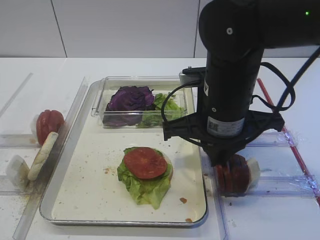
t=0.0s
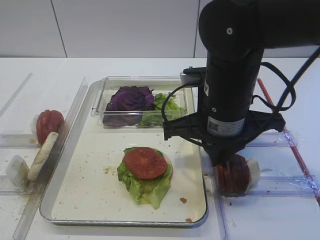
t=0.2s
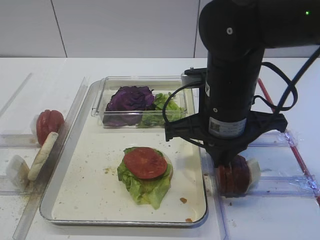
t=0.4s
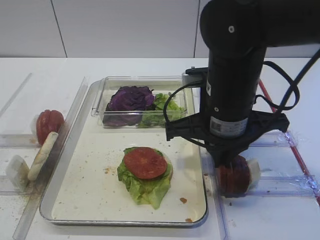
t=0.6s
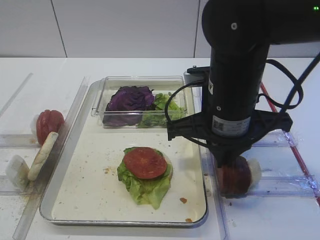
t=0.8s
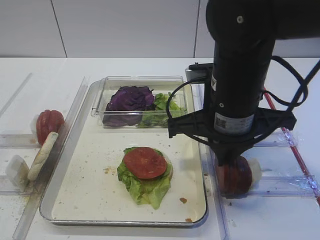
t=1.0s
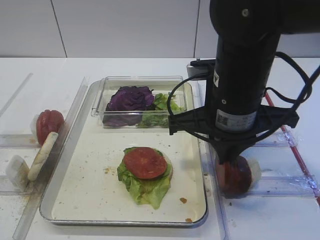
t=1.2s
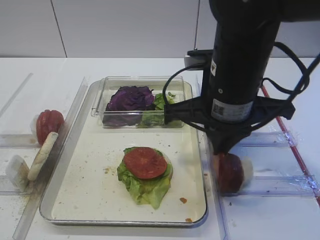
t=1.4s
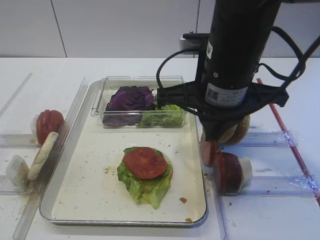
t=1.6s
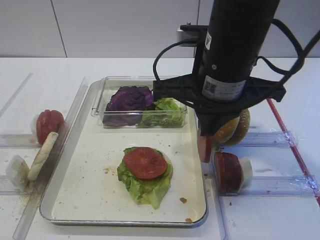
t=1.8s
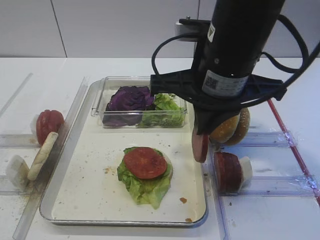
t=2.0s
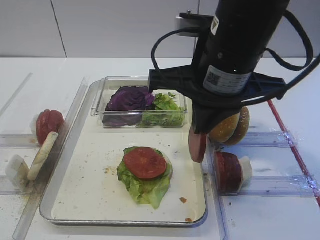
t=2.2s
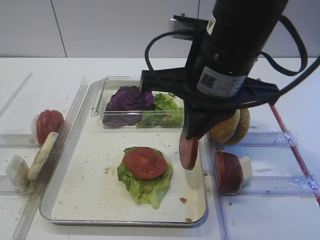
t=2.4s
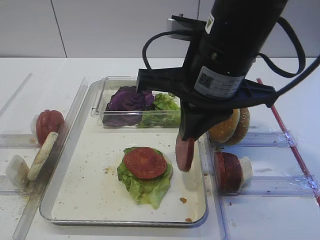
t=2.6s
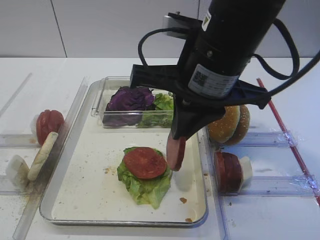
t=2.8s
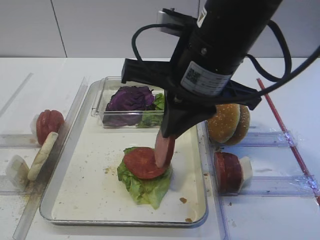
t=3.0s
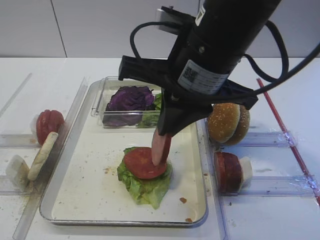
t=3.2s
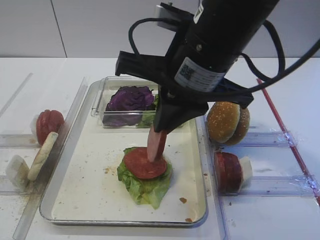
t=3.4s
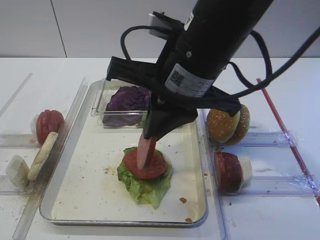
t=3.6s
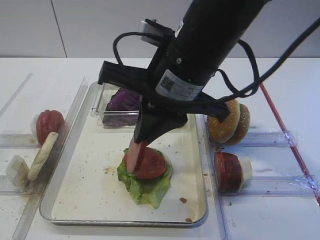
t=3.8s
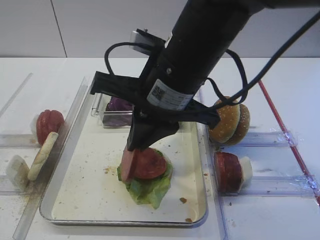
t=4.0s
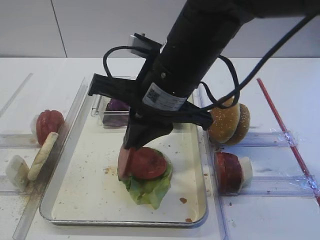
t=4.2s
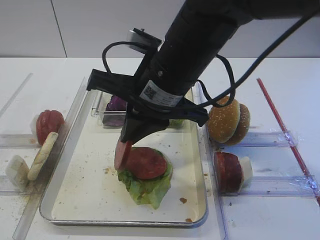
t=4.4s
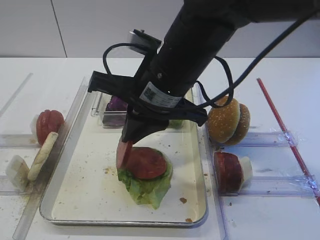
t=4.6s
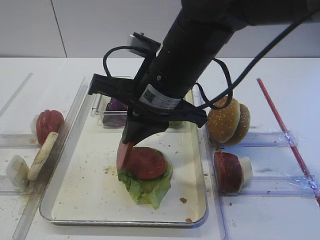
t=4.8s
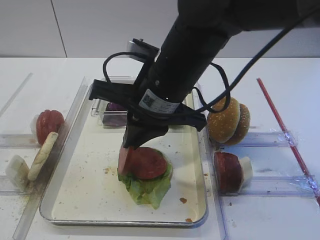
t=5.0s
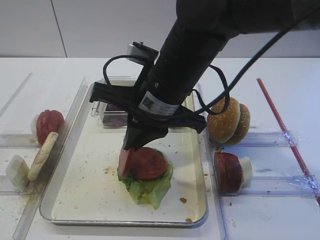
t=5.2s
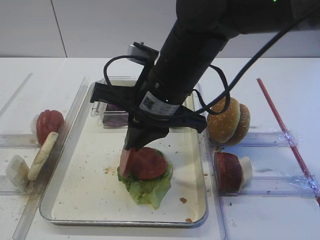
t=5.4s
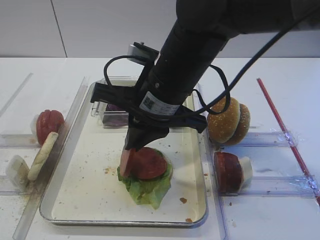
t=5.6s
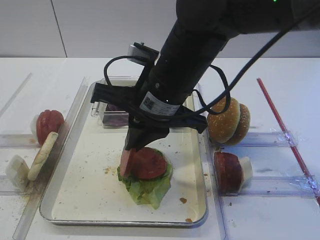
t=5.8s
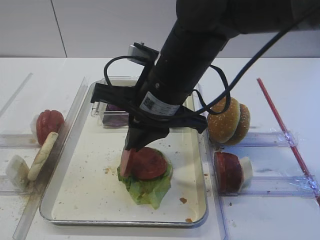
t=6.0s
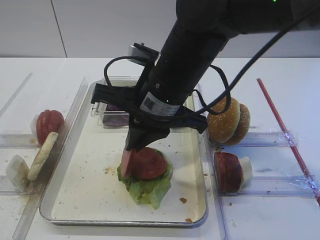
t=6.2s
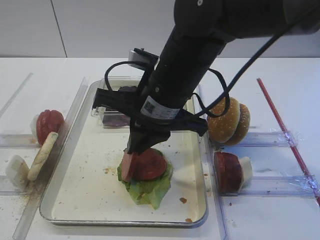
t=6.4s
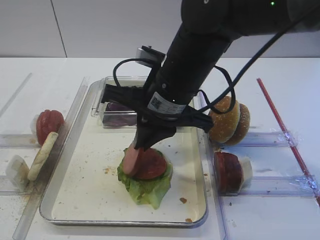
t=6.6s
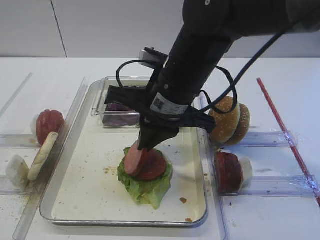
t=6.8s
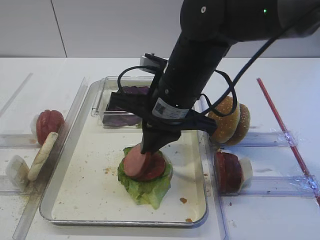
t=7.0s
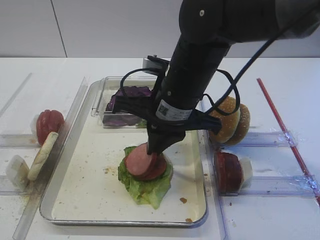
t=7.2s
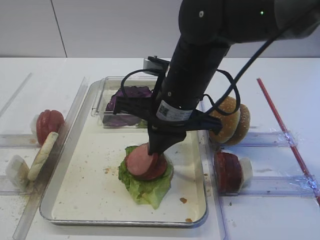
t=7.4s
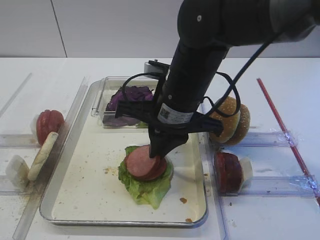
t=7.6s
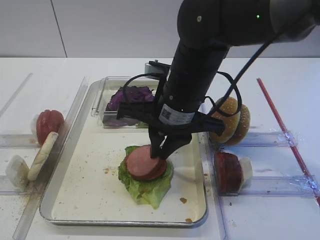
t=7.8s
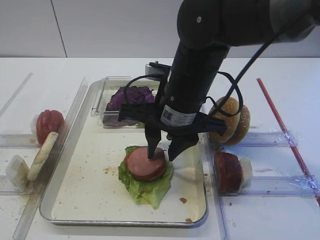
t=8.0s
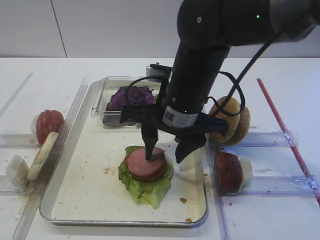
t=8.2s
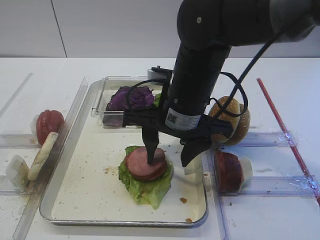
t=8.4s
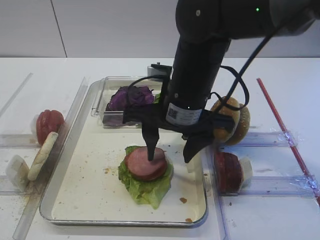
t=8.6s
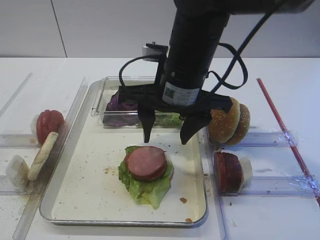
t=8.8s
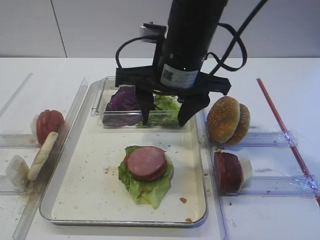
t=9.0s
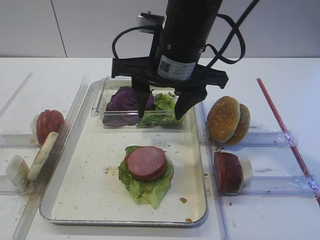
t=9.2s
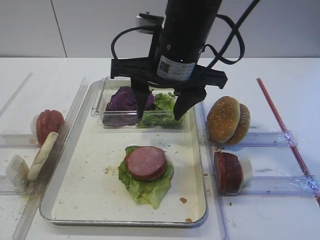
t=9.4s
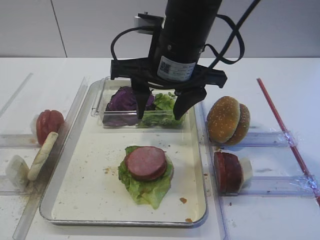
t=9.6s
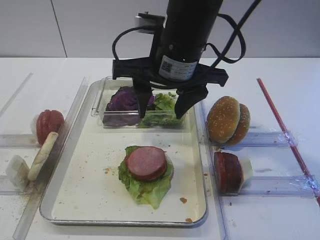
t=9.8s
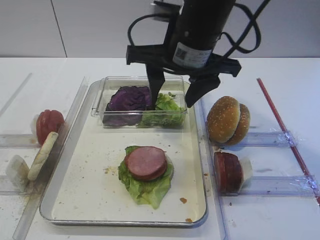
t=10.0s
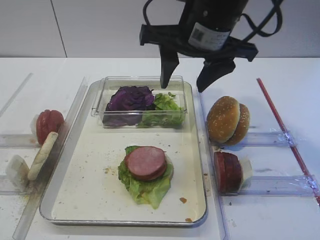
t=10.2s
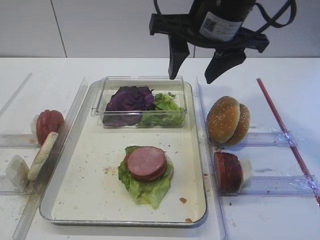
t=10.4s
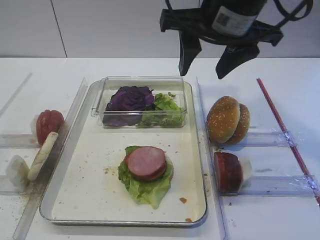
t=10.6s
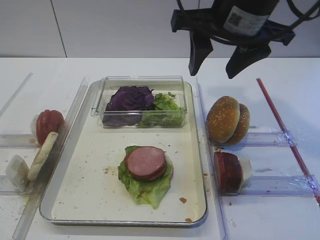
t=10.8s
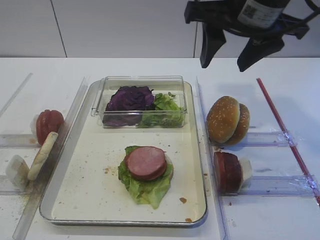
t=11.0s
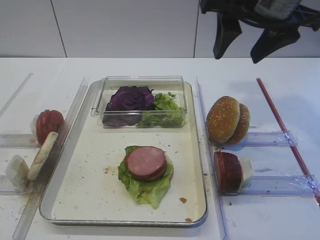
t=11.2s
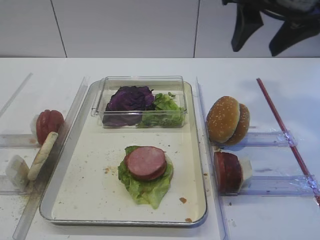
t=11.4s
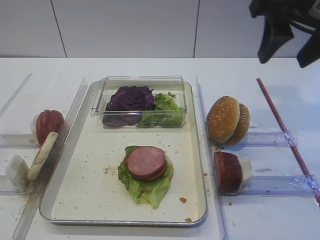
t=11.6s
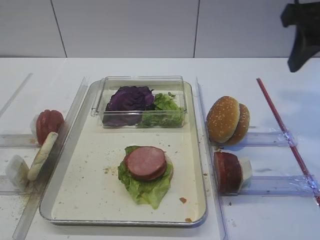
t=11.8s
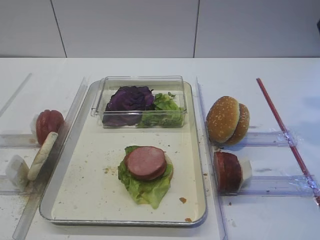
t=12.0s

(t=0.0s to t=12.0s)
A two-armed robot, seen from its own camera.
Step, t=1.6s - t=9.0s: Place the cutlet on the tomato slice with the right gripper.
t=0.0s - t=1.6s: The grippers make only small movements.
t=1.6s - t=3.0s: The grippers move only a little.
t=3.0s - t=4.4s: The right gripper shifts by about 5 cm.
t=4.4s - t=7.6s: The grippers stay close to where they were, moving slightly.
t=7.6s - t=9.0s: The right gripper goes some 5 cm upward, and opens its fingers.
t=9.0s - t=10.4s: The right gripper goes some 10 cm upward and to the right.
t=10.4s - t=12.0s: The right gripper goes about 20 cm to the right.

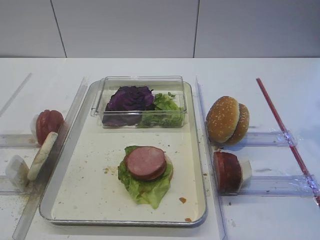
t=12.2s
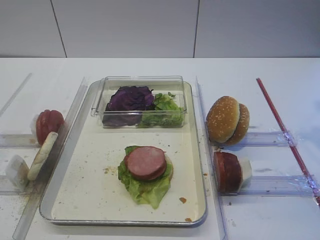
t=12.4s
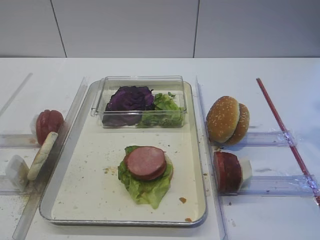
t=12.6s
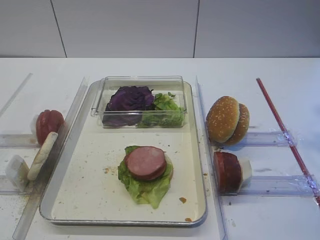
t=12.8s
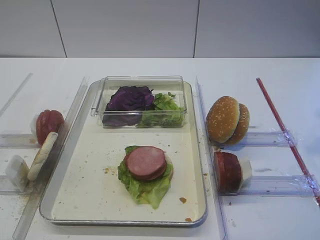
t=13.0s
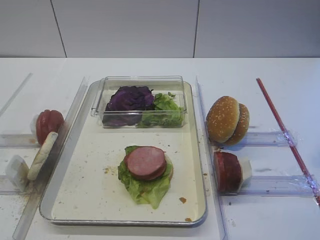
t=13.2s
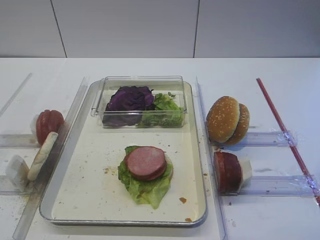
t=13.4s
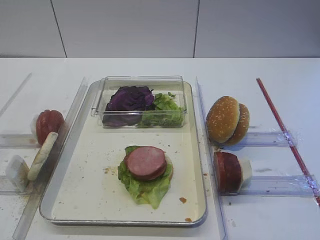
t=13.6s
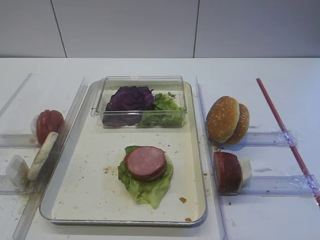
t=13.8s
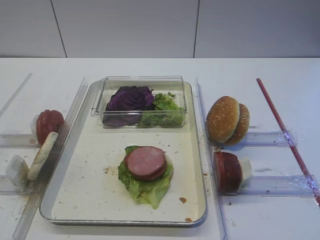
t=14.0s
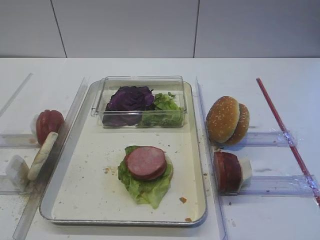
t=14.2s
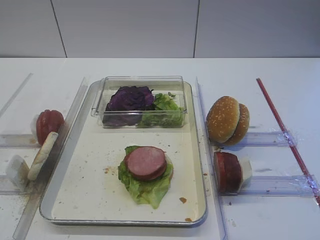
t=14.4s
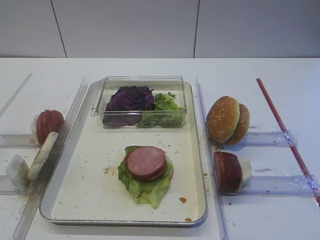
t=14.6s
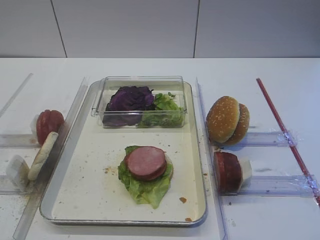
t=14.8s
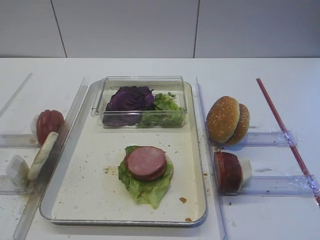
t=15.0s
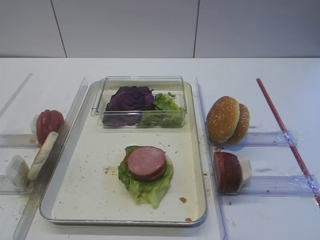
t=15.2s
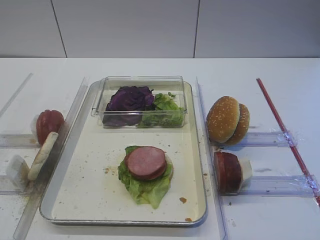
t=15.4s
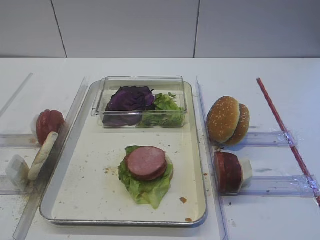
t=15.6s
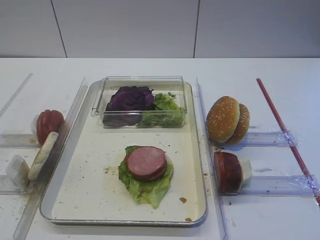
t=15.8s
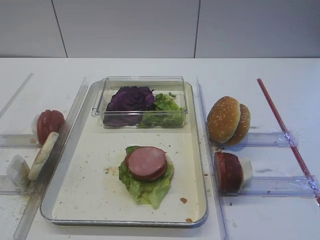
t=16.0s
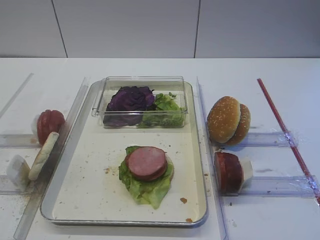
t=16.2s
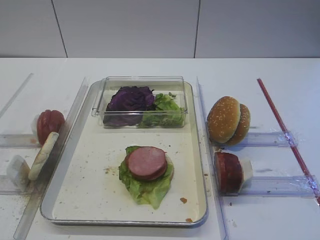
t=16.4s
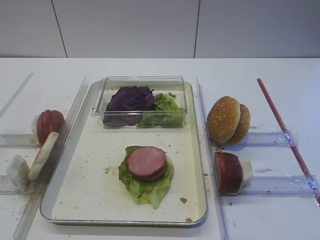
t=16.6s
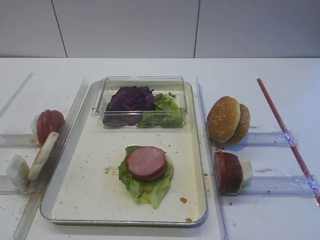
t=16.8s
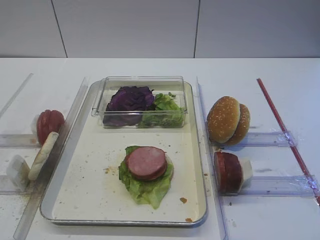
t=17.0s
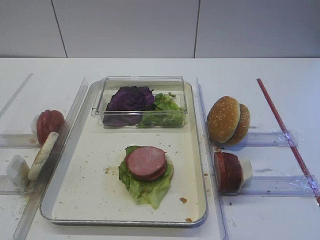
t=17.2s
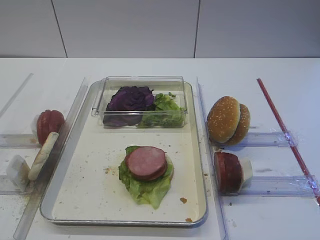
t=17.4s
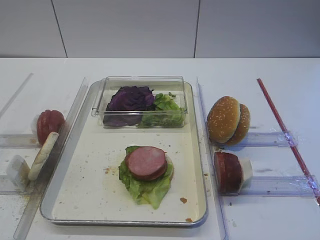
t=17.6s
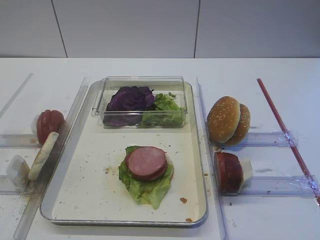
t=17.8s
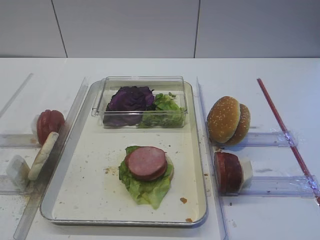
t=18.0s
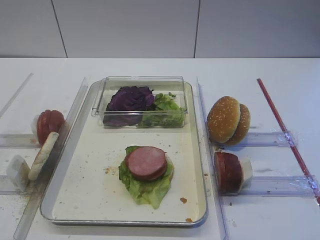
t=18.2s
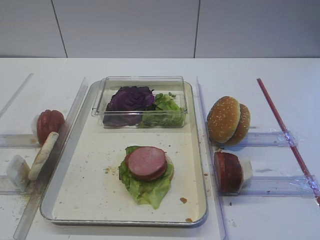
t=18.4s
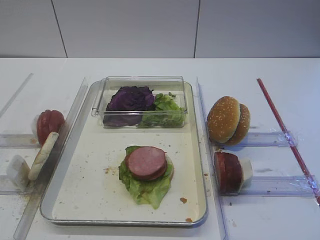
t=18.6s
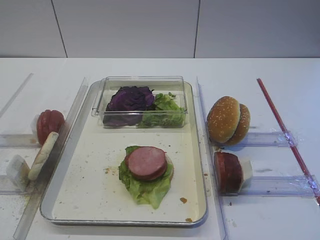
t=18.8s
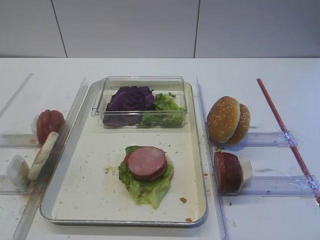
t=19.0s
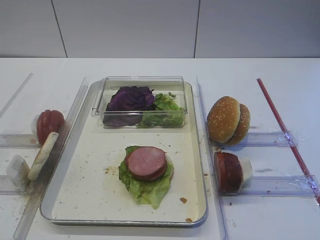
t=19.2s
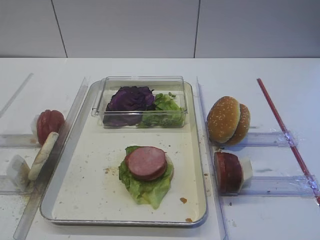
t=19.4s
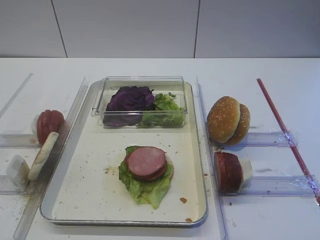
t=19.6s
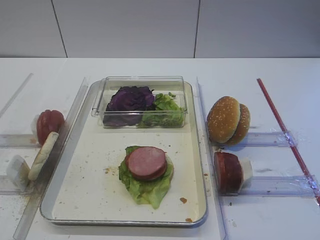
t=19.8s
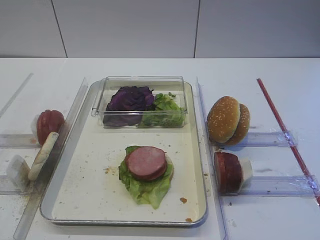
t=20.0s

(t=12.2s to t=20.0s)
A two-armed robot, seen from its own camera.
t=16.8s - t=20.0s: The two grippers keep their place.
